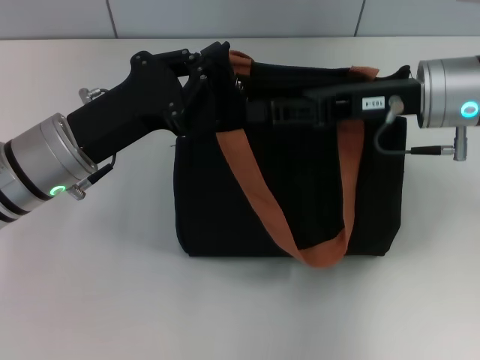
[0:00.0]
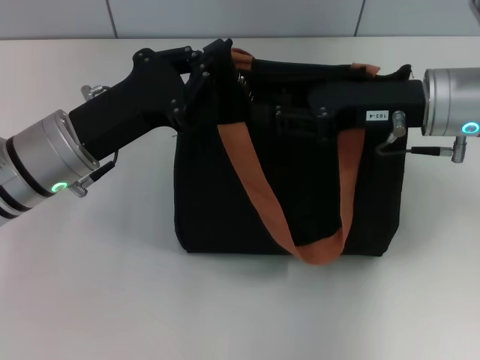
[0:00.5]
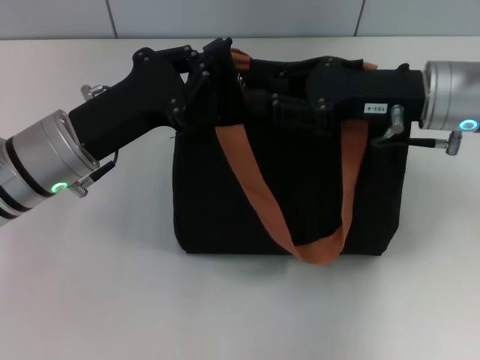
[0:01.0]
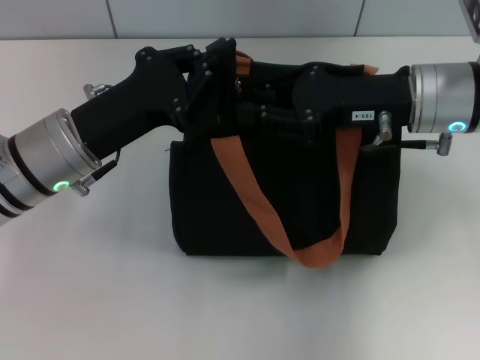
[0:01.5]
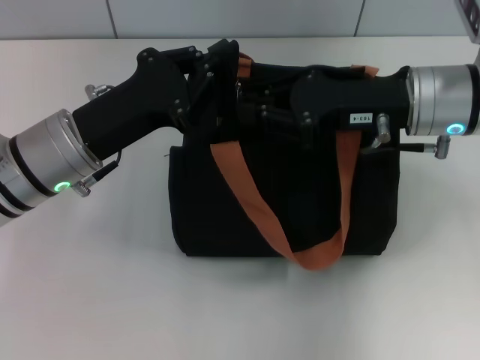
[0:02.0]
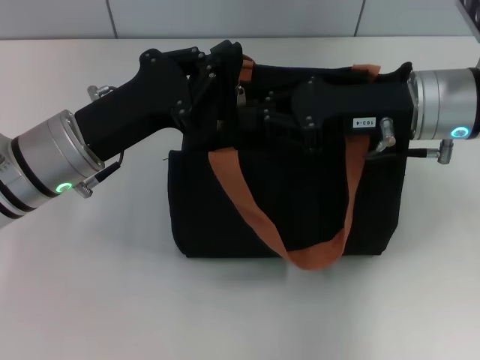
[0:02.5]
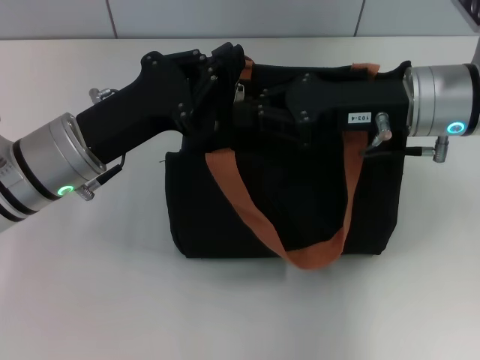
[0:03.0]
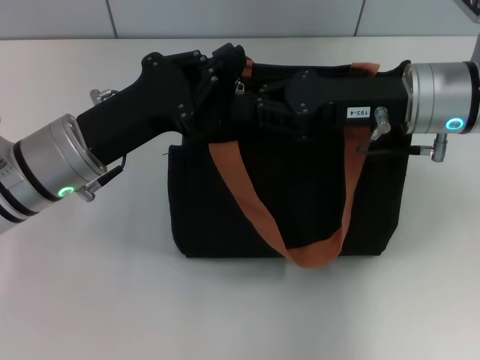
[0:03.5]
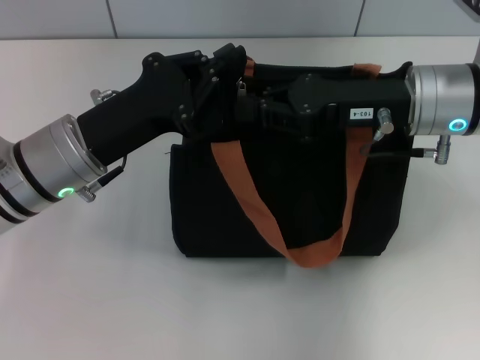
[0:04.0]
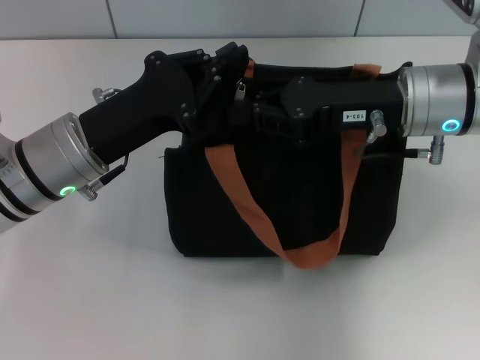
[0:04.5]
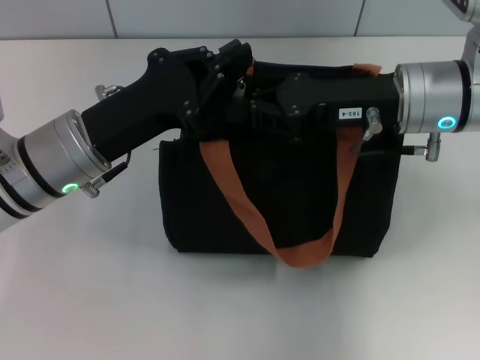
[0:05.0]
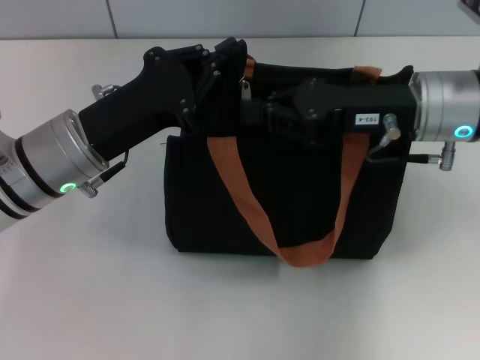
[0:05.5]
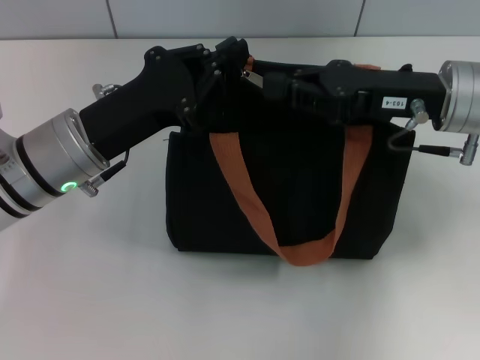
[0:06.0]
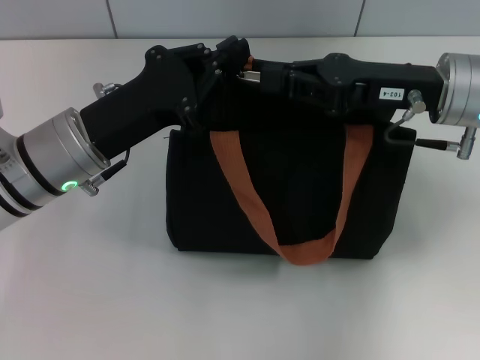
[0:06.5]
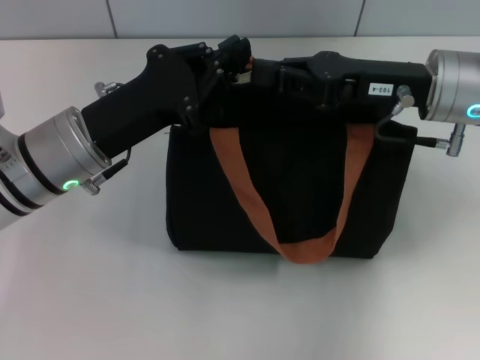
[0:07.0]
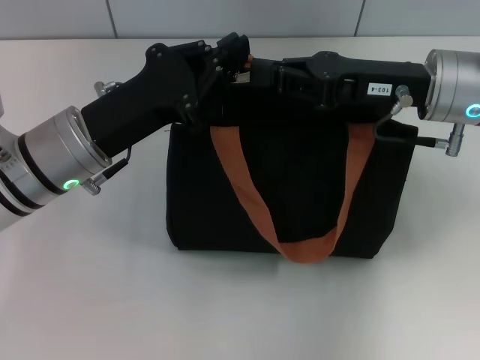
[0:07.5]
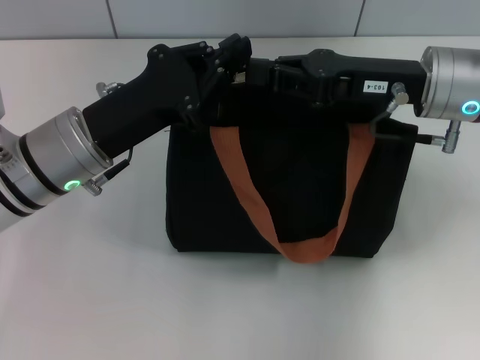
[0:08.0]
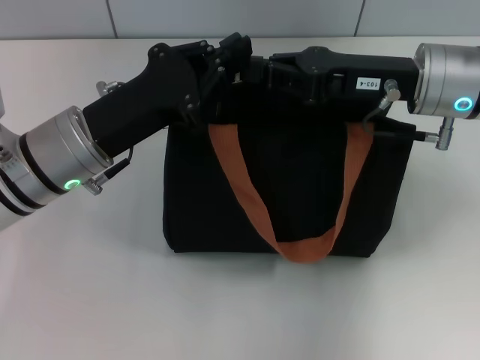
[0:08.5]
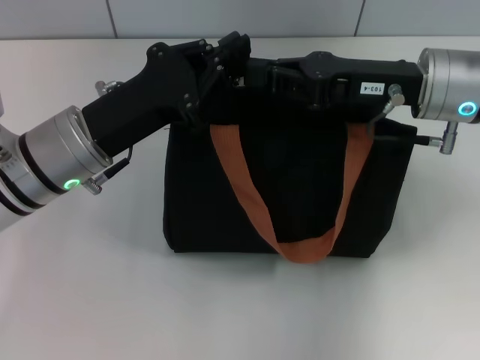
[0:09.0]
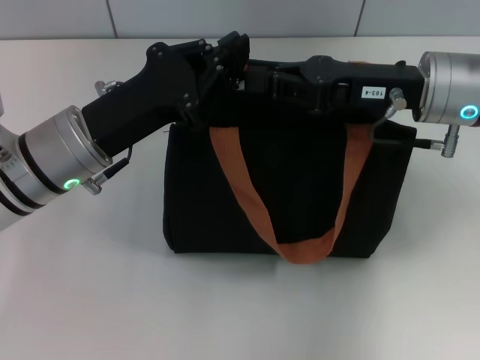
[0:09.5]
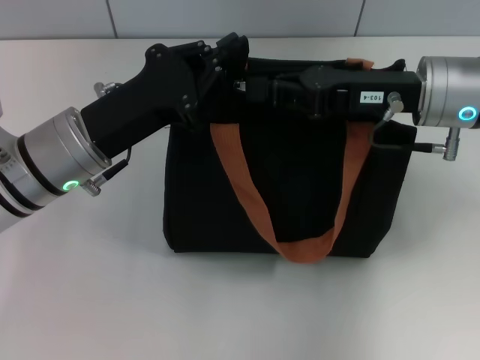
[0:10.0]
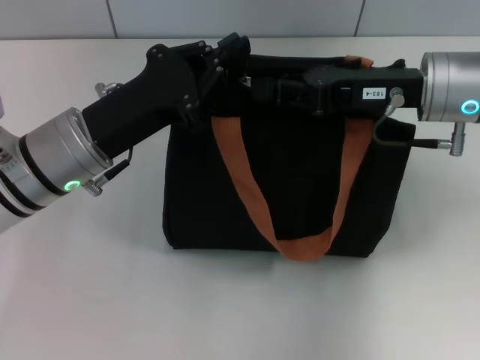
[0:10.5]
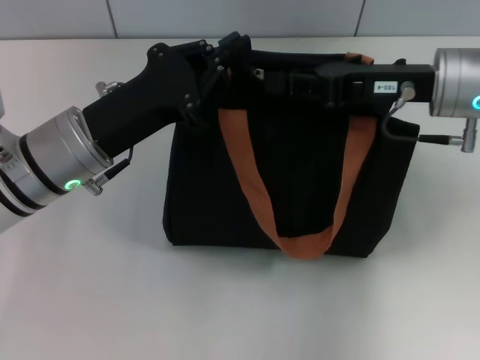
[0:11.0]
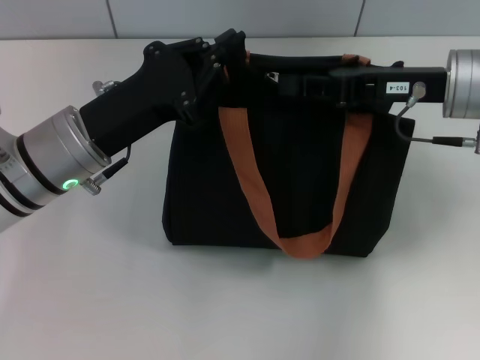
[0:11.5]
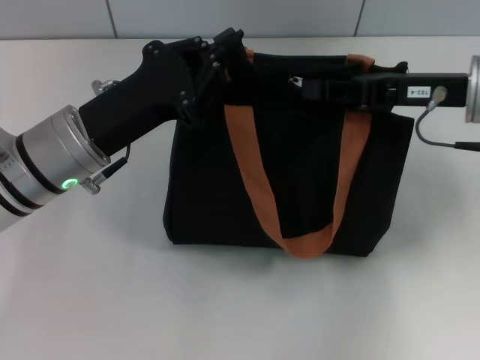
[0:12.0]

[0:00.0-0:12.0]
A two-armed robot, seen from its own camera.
0:02.0 to 0:08.0: There are only small adjustments of the grippers.
0:08.0 to 0:10.0: Both grippers stay about where they are.
0:10.0 to 0:12.0: The grippers make only small movements.

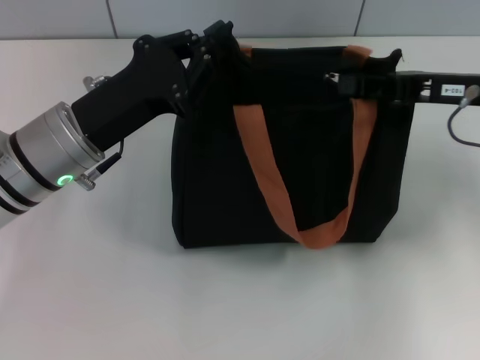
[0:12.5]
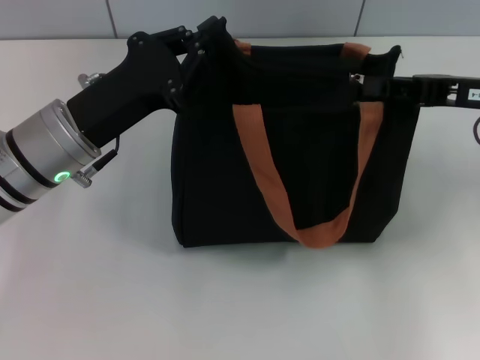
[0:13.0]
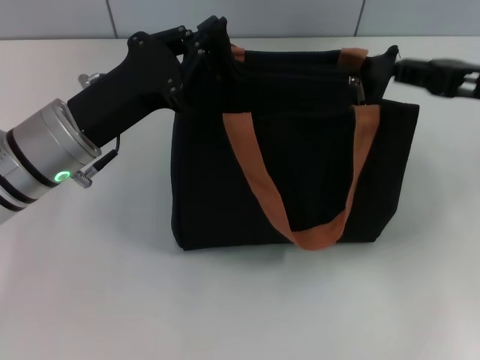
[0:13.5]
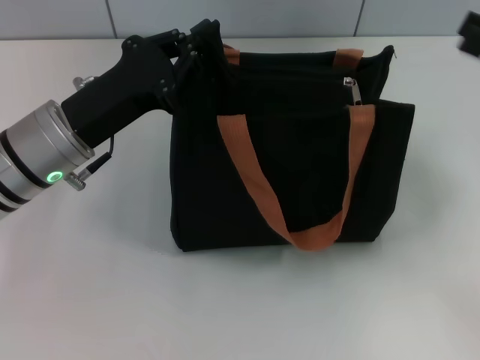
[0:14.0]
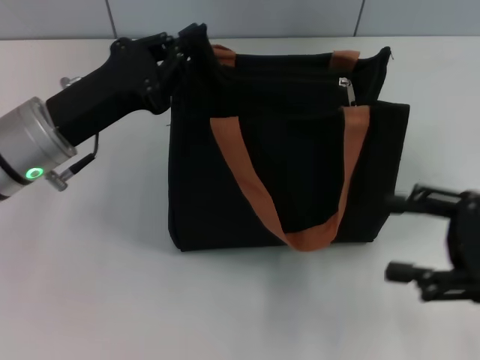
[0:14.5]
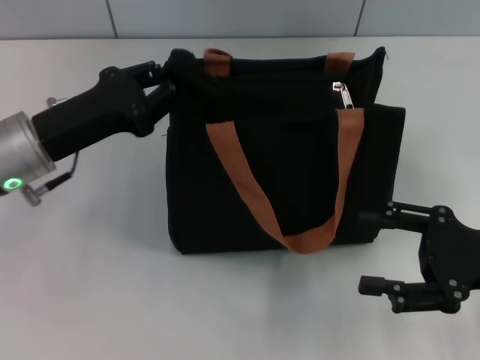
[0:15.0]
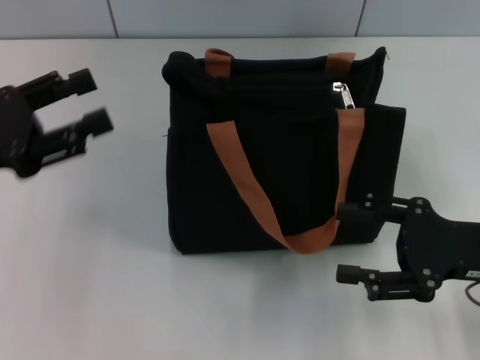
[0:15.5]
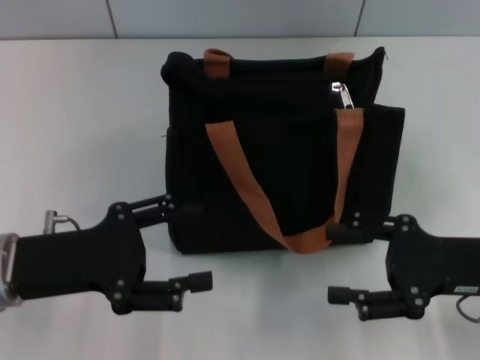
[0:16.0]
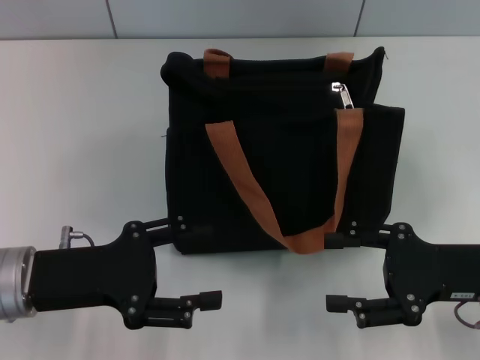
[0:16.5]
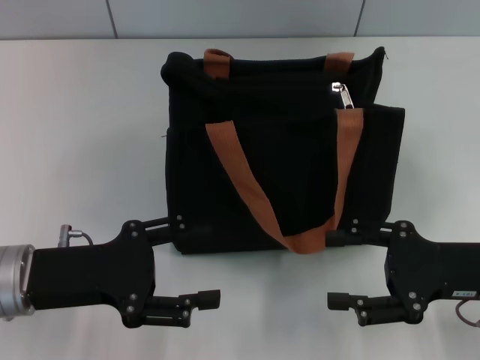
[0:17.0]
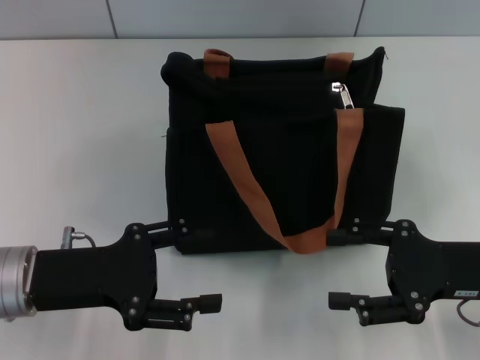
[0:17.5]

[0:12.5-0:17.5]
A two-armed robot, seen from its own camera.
Step, 0:14.0 to 0:15.0: Grab the zipper with your left hand.
0:12.5 to 0:15.0: The right gripper is displaced backward and downward by about 15 cm, and opens its fingers.
0:15.0 to 0:17.5: The left gripper moves backward, roughly 10 cm, and opens.
